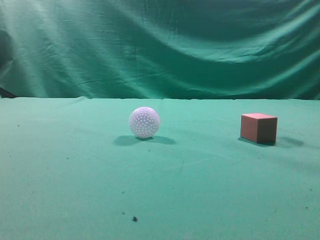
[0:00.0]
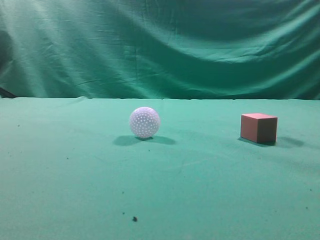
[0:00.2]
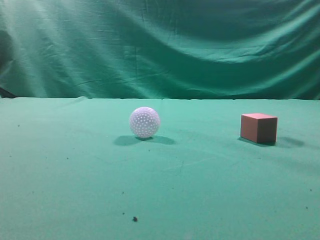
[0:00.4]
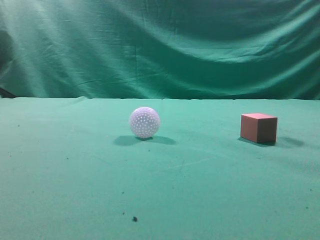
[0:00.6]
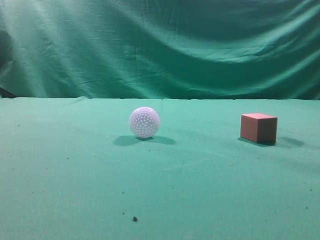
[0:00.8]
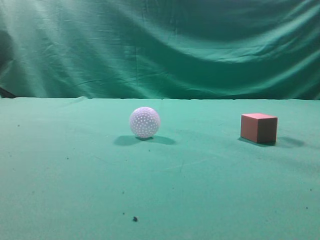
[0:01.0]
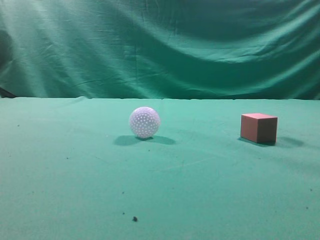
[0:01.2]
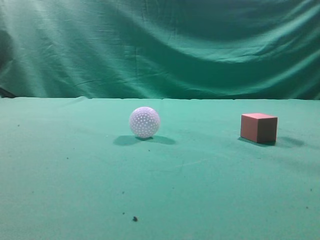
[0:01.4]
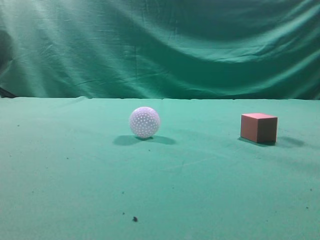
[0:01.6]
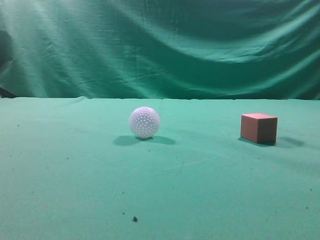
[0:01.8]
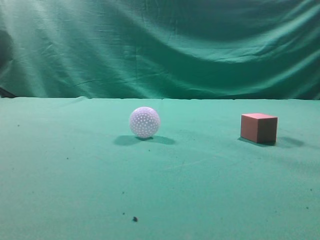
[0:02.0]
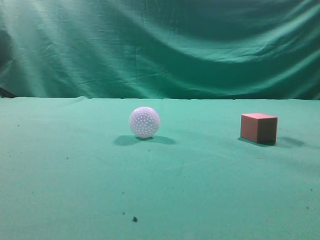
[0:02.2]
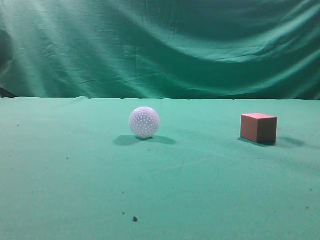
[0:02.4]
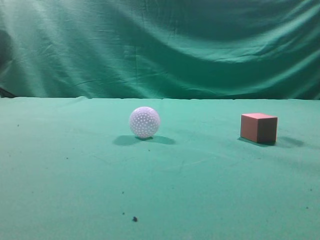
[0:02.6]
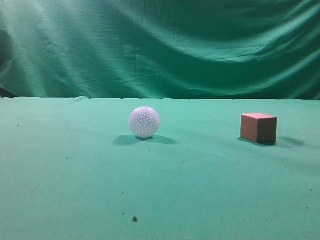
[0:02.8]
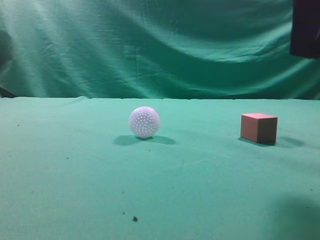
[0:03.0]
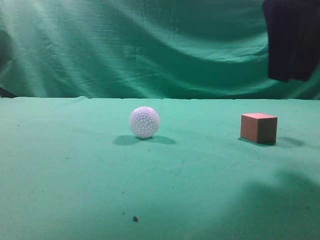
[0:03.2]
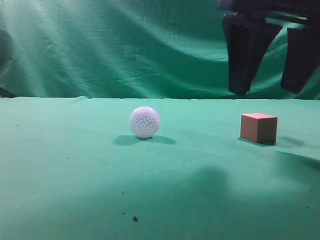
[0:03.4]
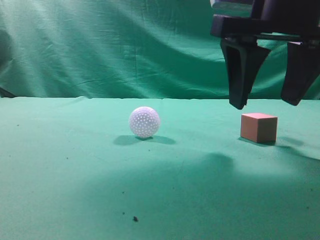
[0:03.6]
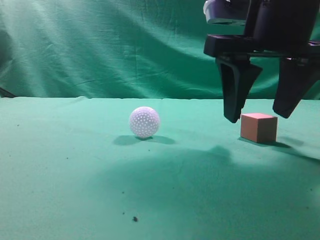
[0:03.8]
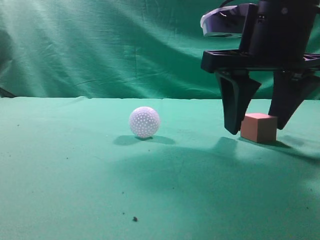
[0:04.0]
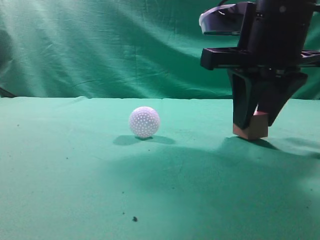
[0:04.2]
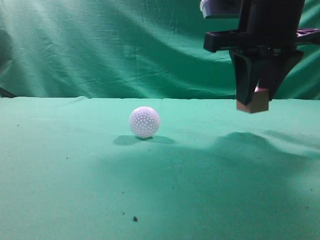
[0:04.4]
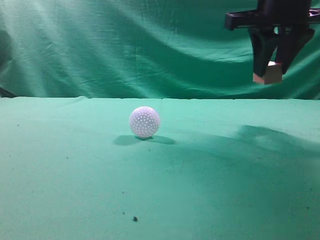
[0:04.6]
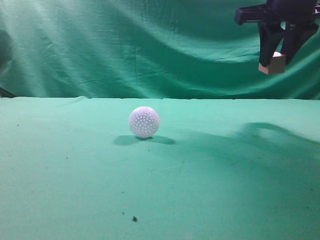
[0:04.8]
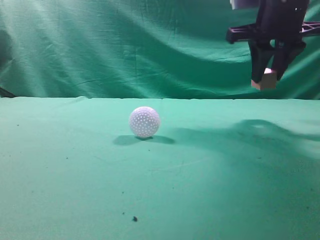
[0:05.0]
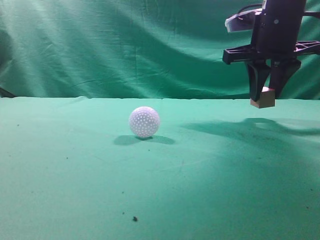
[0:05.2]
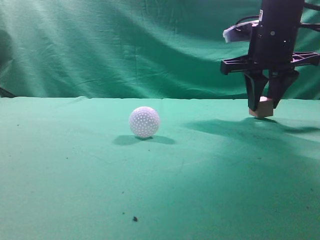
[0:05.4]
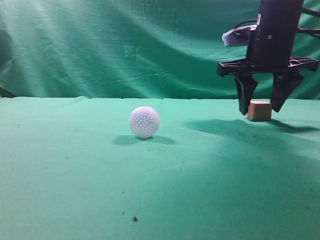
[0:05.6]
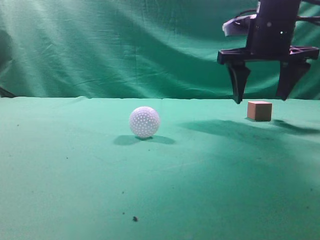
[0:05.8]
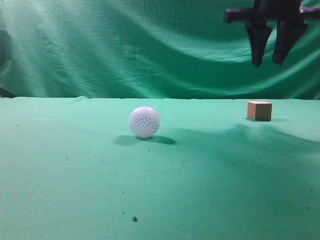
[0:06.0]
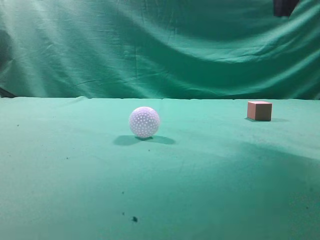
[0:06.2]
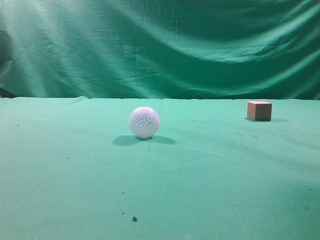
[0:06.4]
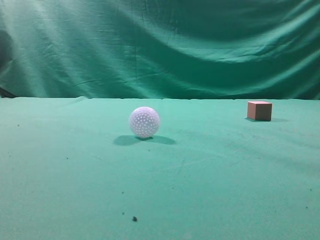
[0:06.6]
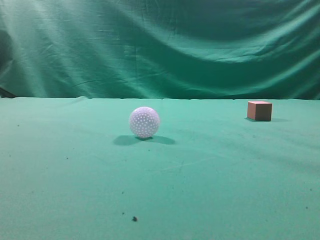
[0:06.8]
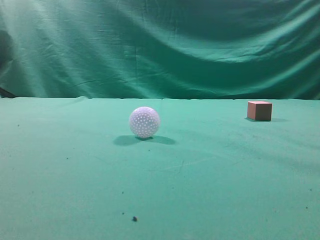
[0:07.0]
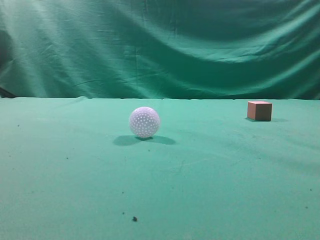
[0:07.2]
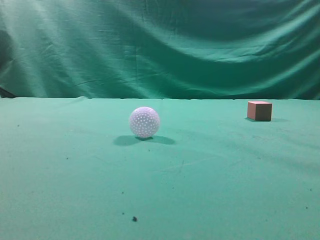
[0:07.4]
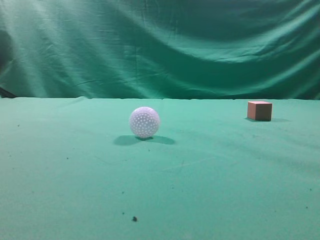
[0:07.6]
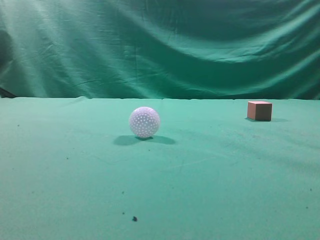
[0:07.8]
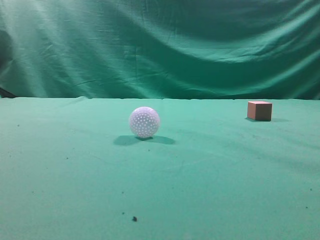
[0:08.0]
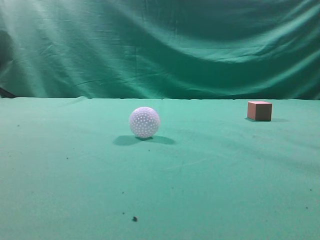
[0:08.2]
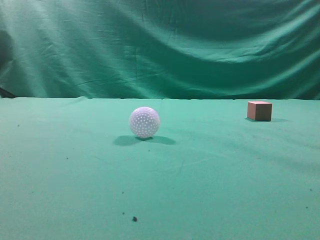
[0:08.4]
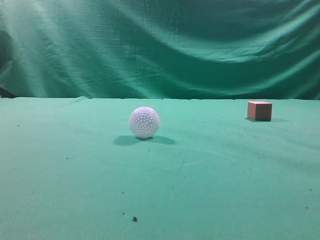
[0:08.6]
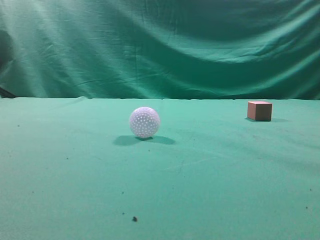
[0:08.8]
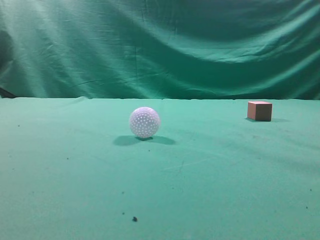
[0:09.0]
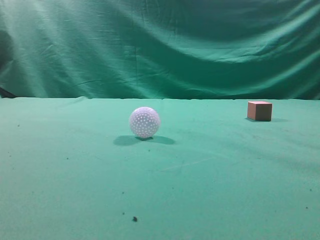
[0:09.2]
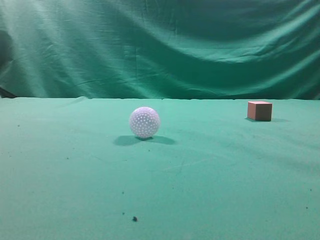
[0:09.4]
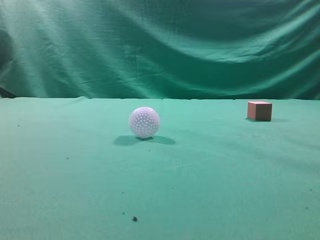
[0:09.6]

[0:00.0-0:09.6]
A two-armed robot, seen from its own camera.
Task of the whole recording: pick up the cube block and place it in another position on the table.
Step, 0:00.0 to 0:04.2: Pick up the small cube.
Step, 0:04.4 to 0:05.6: Place the small cube on the ahead of the table.
0:01.6 to 0:03.2: The right gripper shifts roughly 25 cm forward and to the left, and opens up.
0:03.2 to 0:04.8: The right gripper travels forward by roughly 15 cm, and opens, then closes once more.
0:04.8 to 0:06.4: The right gripper moves upward and backward, approximately 15 cm, and closes its fingers.

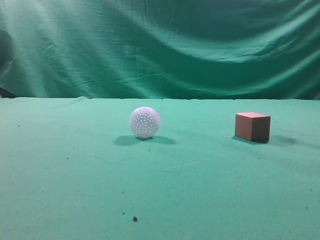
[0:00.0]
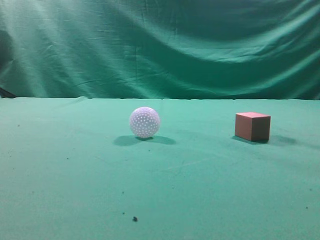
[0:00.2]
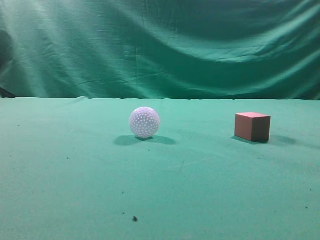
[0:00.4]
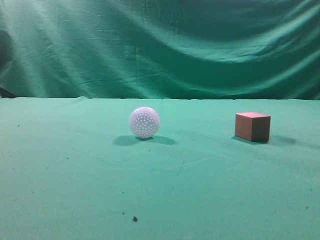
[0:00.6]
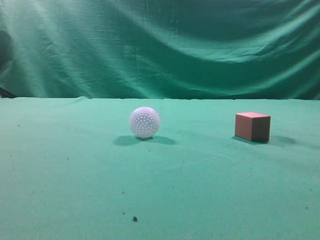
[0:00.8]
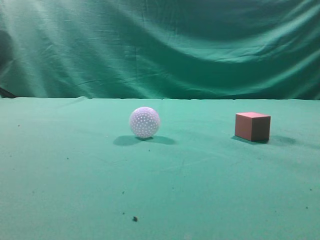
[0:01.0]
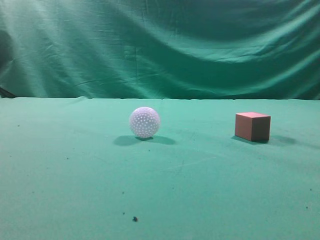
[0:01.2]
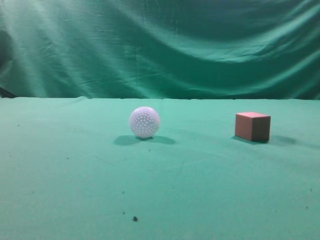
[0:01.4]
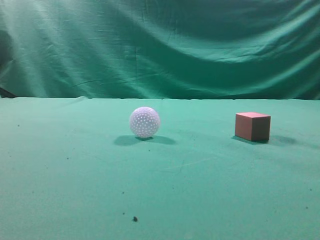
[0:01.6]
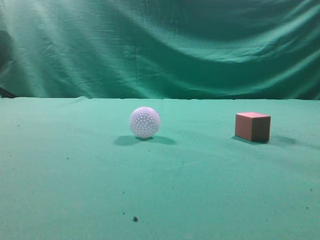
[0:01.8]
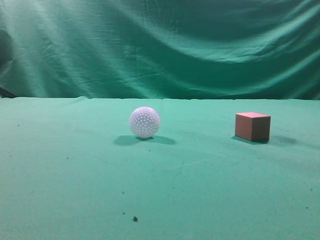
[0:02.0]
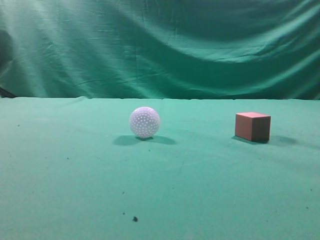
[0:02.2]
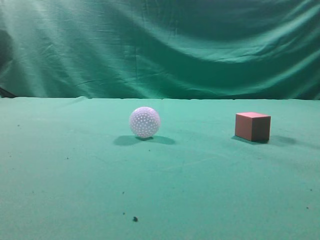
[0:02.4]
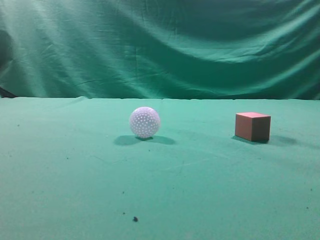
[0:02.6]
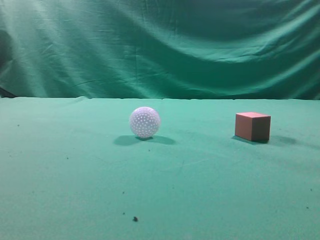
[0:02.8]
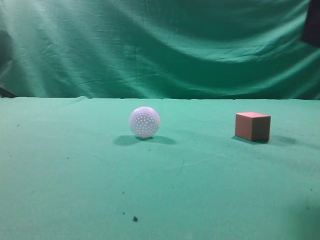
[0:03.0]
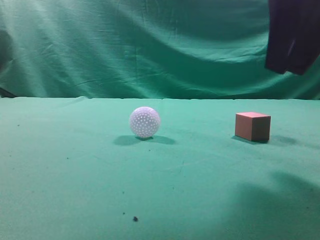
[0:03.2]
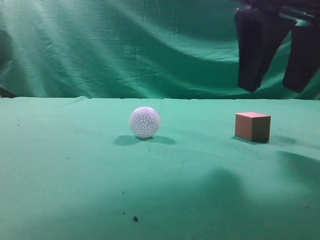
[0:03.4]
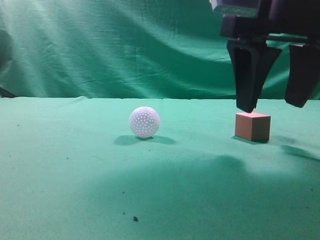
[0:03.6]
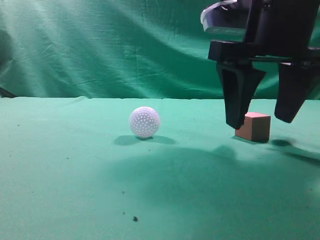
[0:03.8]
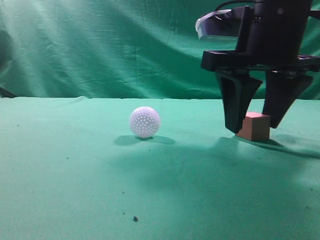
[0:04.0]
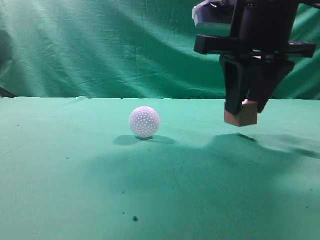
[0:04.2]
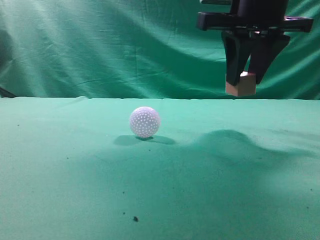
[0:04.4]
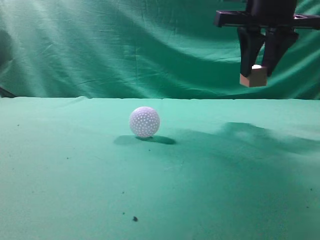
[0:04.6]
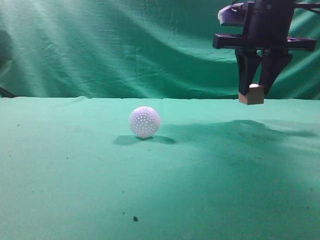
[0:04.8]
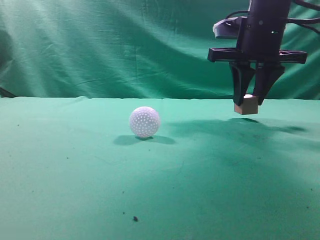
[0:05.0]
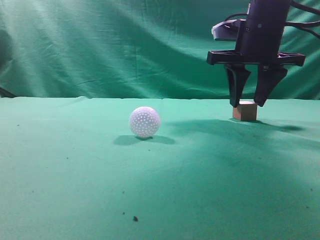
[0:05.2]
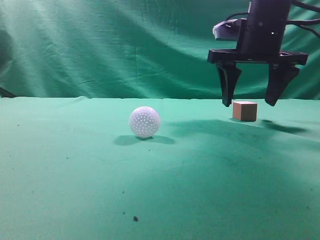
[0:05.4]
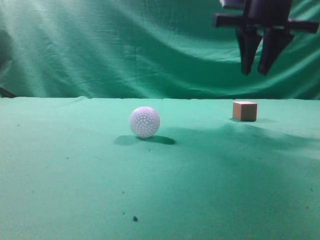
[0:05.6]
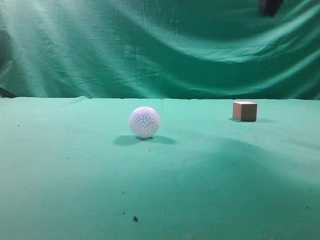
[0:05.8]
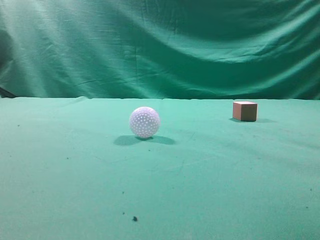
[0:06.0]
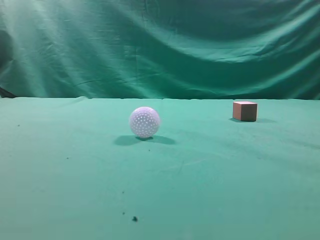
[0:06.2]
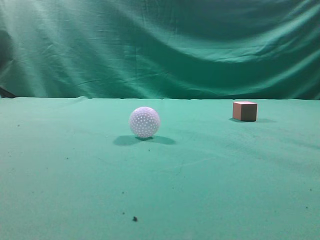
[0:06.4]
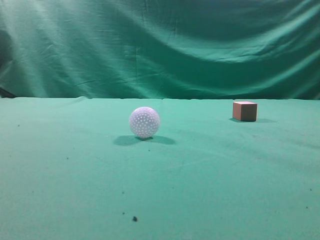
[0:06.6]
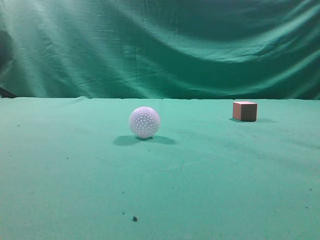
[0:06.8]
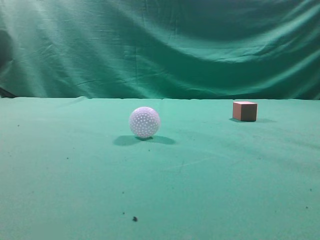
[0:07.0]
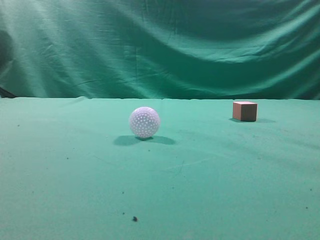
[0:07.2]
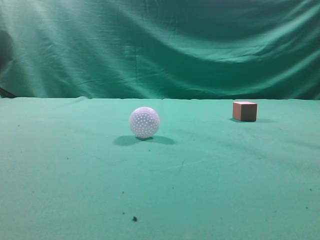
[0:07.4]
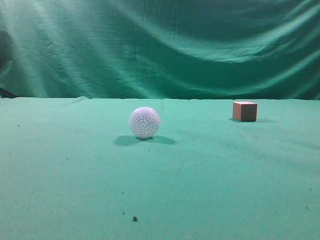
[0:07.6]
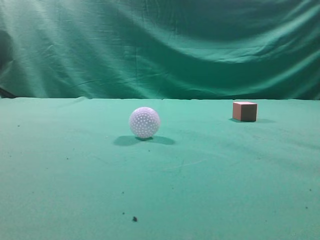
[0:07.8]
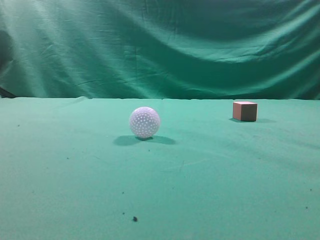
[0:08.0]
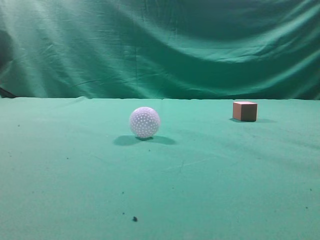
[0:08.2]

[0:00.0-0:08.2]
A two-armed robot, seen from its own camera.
Task of the whole recording: pick up the cube block and place it in another position on the table.
Step, 0:00.0 to 0:04.2: Pick up the small cube.
Step, 0:04.4 to 0:05.2: Place the small cube on the ahead of the table.
0:01.6 to 0:03.2: The right gripper shifts some 25 cm forward and to the left, and opens.
0:03.2 to 0:05.0: The right gripper is displaced forward by about 15 cm.
0:05.0 to 0:06.6: The right gripper shifts roughly 30 cm backward and upward, and closes its fingers.
